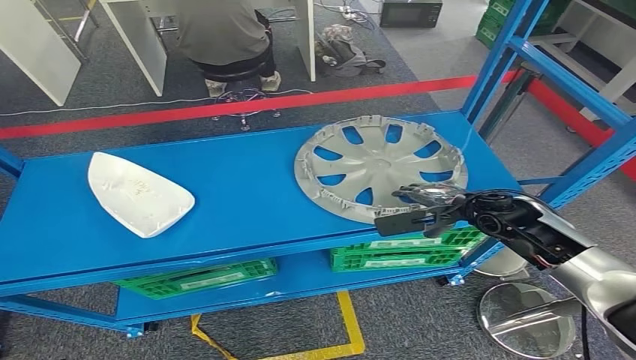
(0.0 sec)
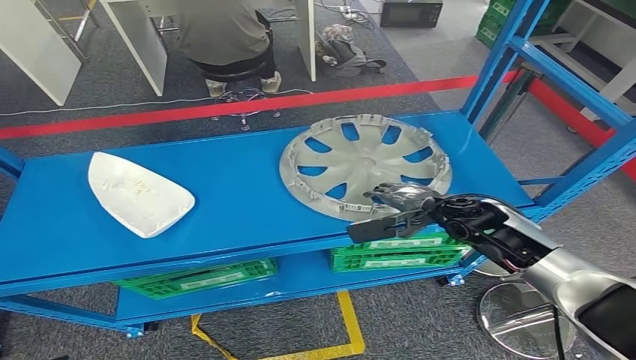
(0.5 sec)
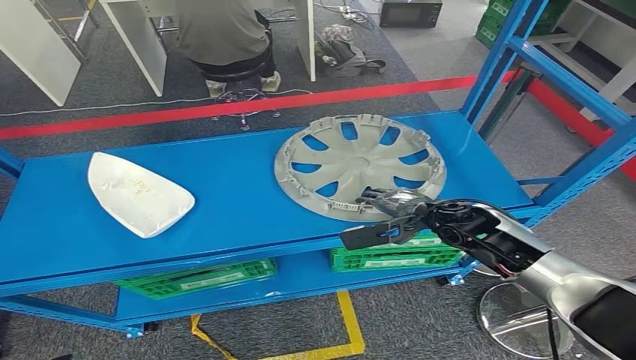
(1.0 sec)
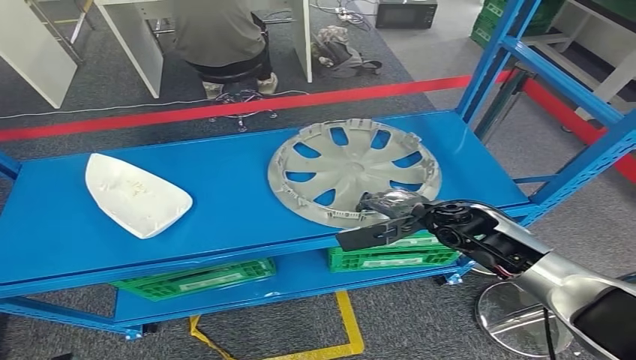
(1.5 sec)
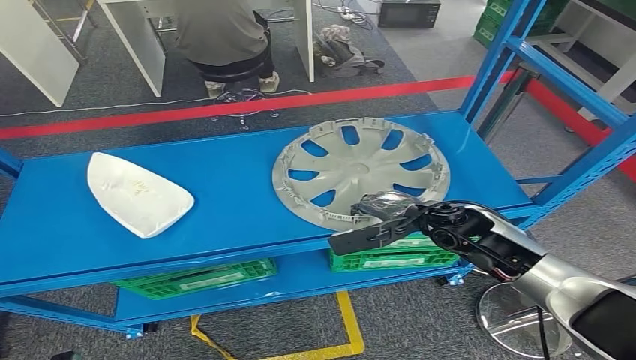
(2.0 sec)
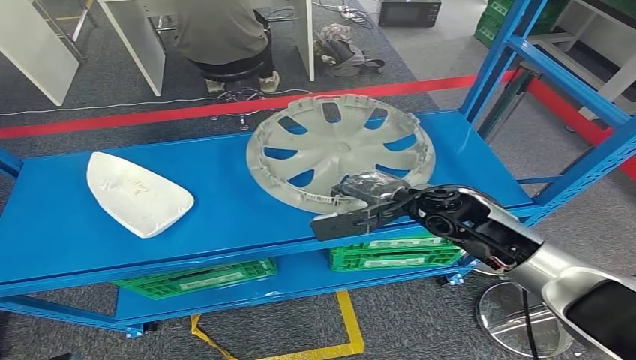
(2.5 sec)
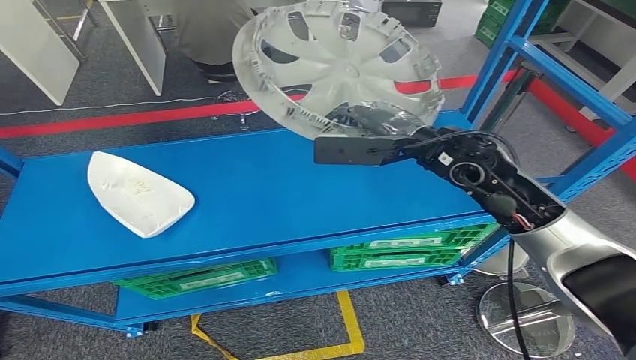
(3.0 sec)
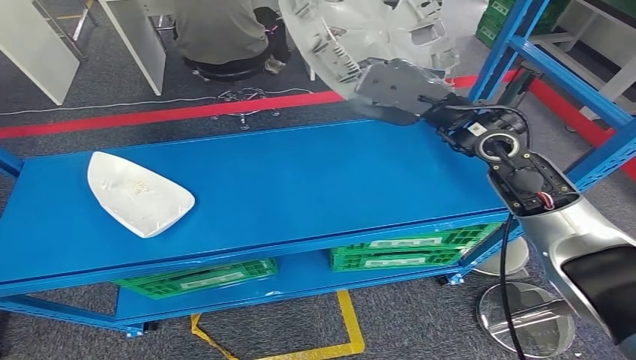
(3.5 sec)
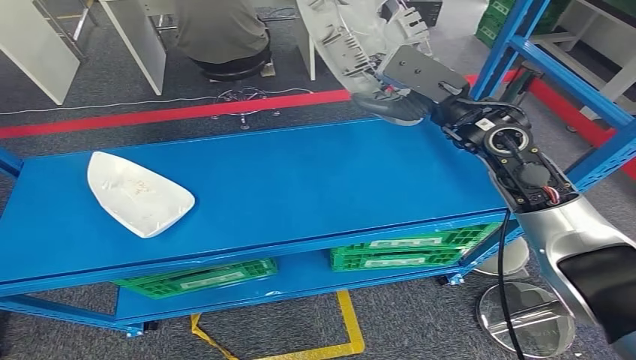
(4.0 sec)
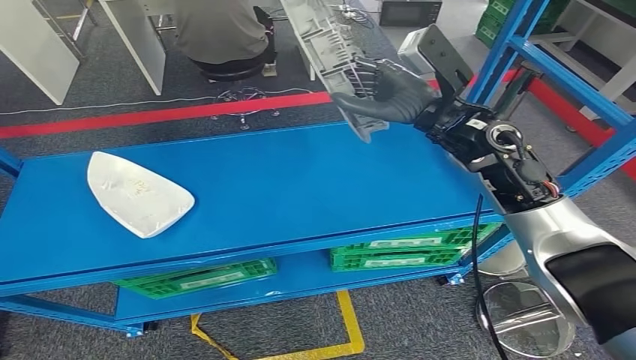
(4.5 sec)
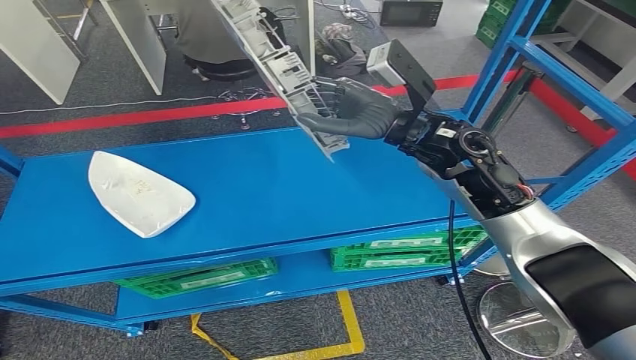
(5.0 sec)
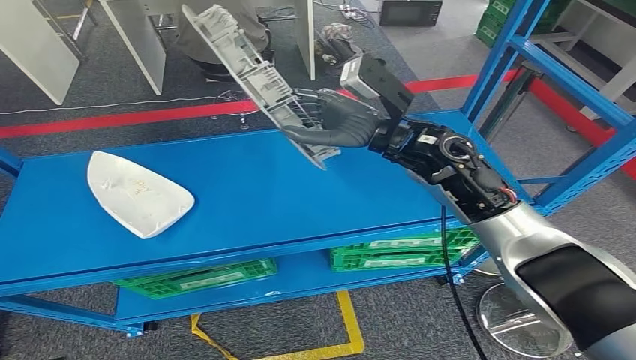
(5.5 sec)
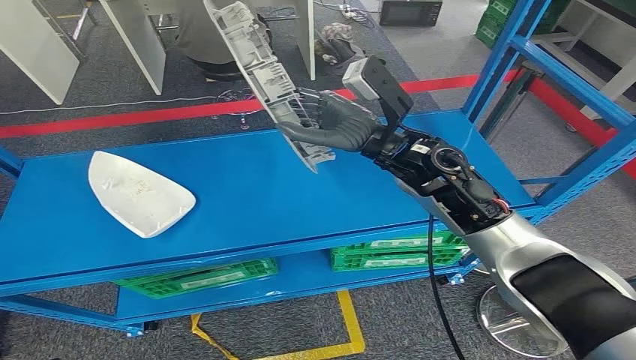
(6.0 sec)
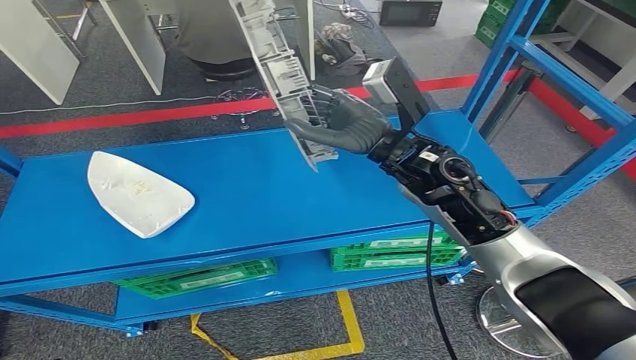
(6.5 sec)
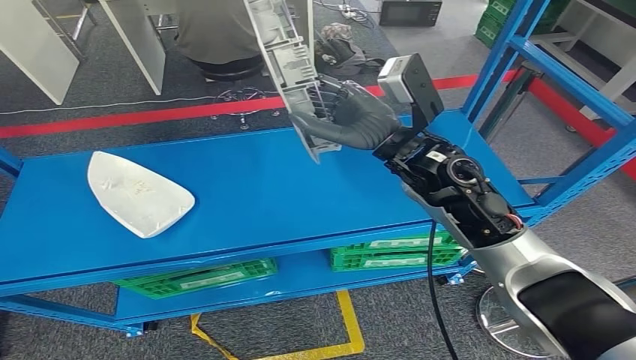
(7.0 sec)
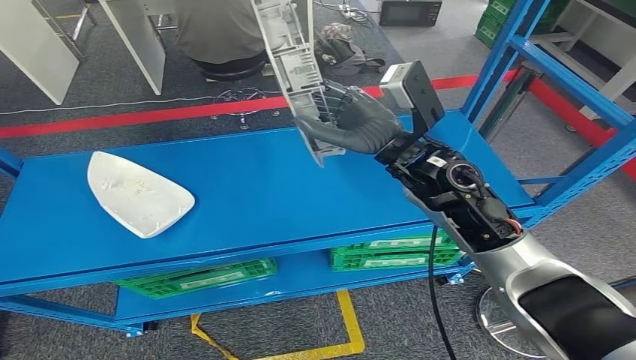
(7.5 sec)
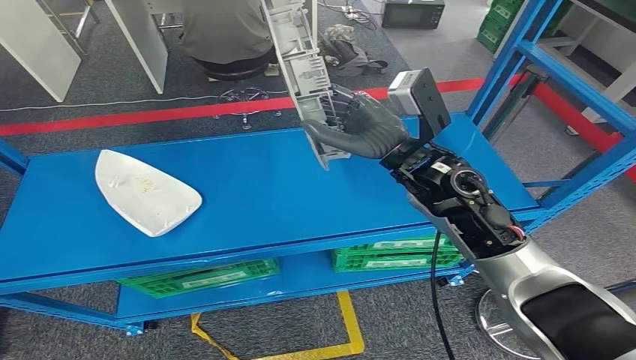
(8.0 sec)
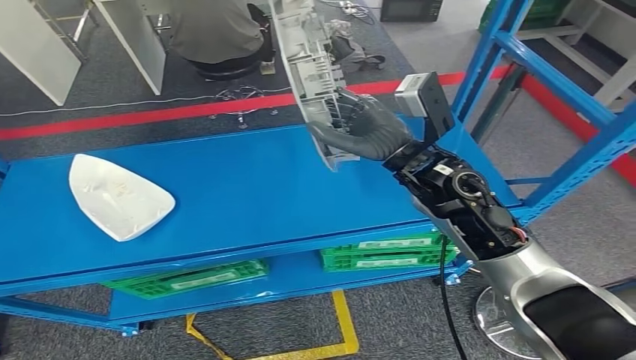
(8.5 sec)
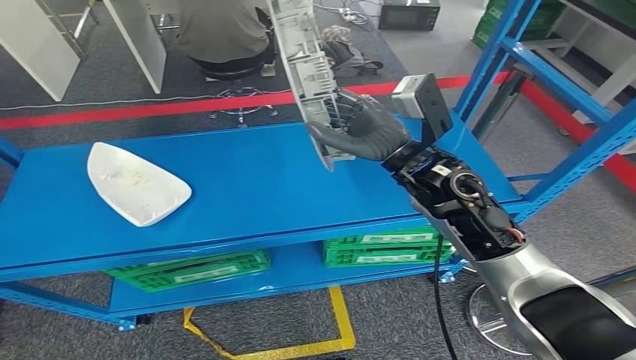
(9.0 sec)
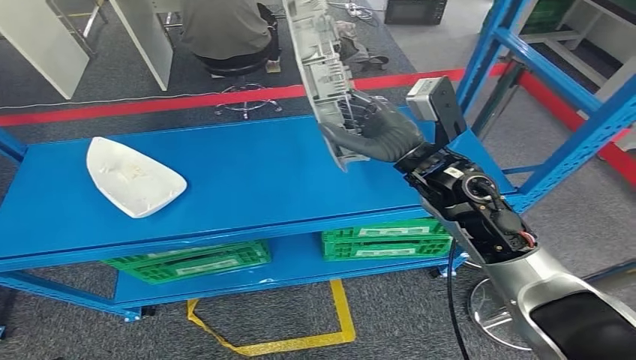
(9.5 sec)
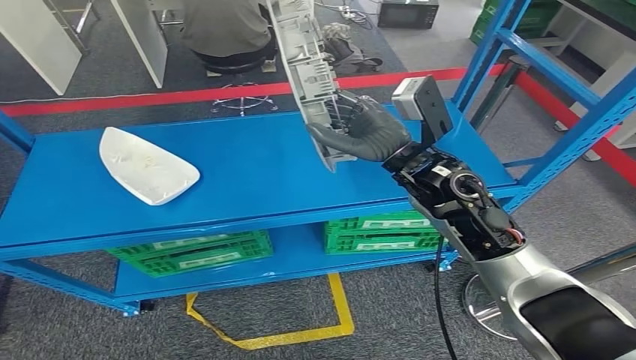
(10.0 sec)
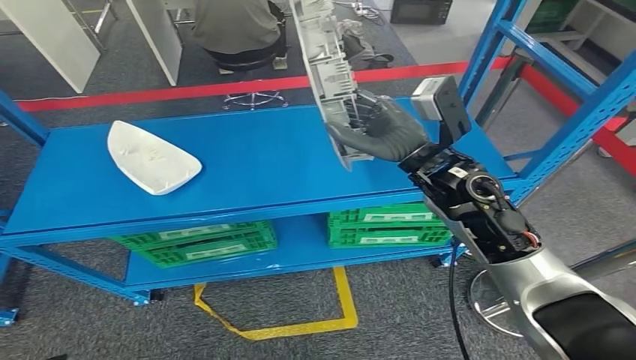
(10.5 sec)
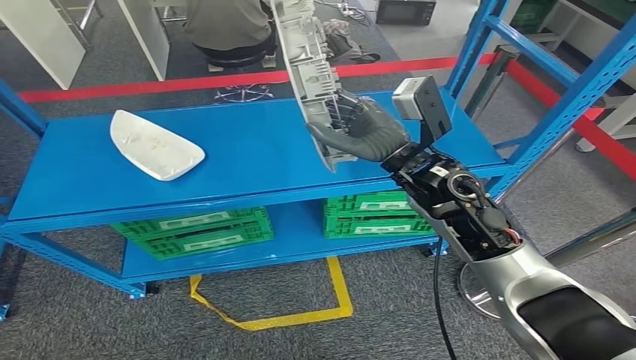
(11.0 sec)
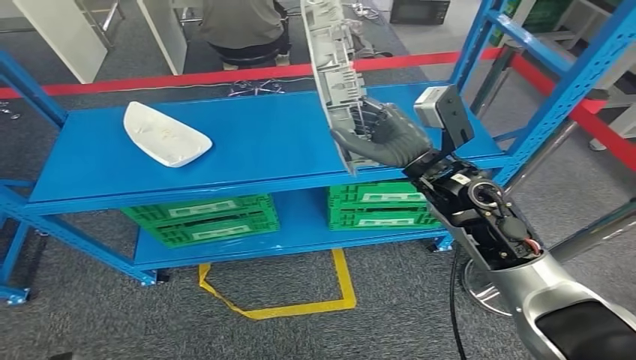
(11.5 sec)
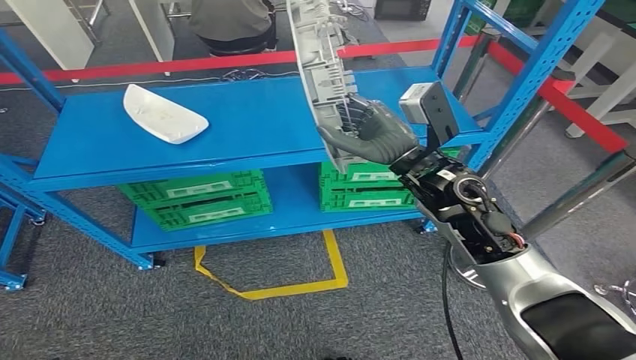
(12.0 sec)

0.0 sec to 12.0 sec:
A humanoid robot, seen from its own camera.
Step, 0.0 sec to 4.5 sec: Pick up the small component from the shelf.
0.0 sec to 2.0 sec: The right hand is displaced to the left by some 10 cm.
4.0 sec to 6.0 sec: The right hand goes roughly 10 cm to the left.

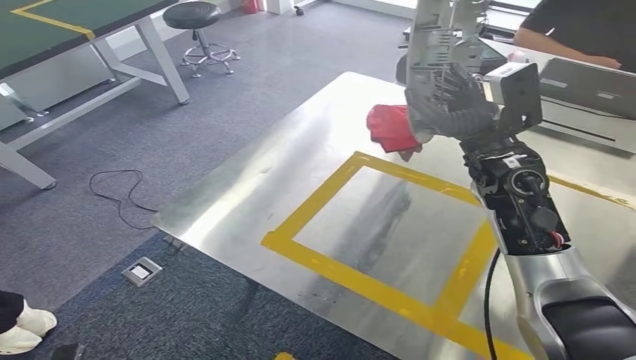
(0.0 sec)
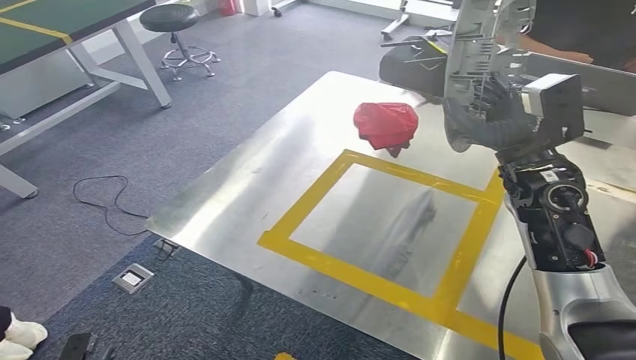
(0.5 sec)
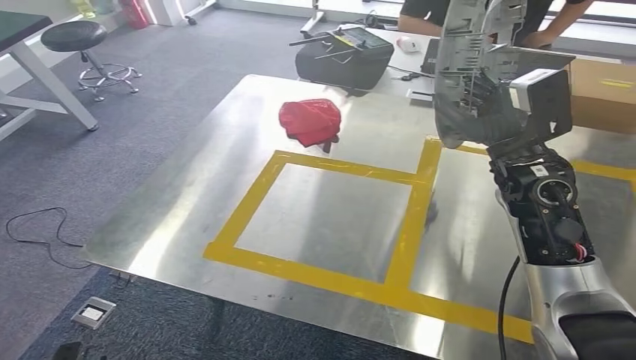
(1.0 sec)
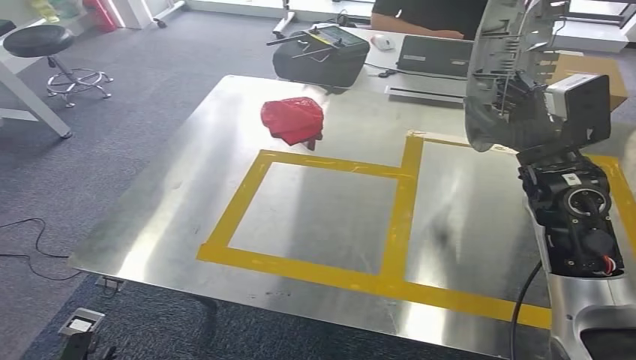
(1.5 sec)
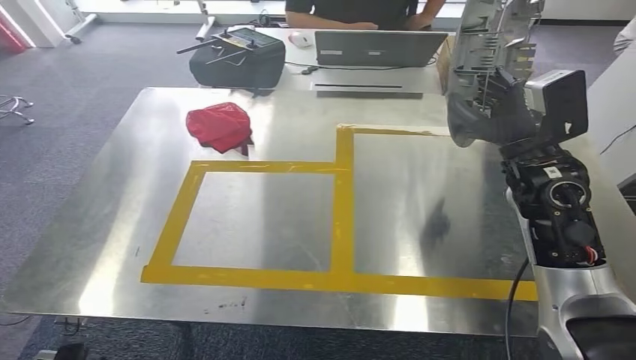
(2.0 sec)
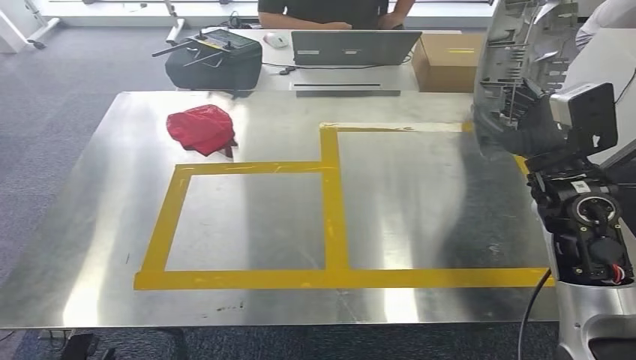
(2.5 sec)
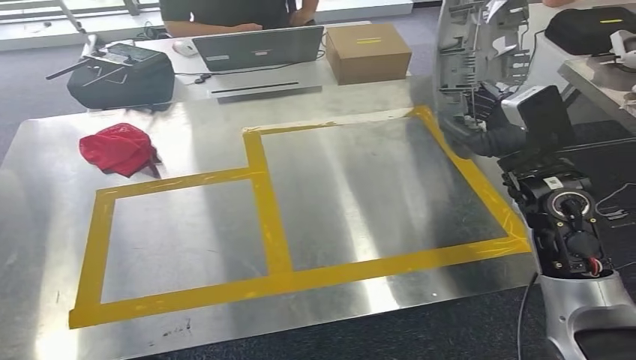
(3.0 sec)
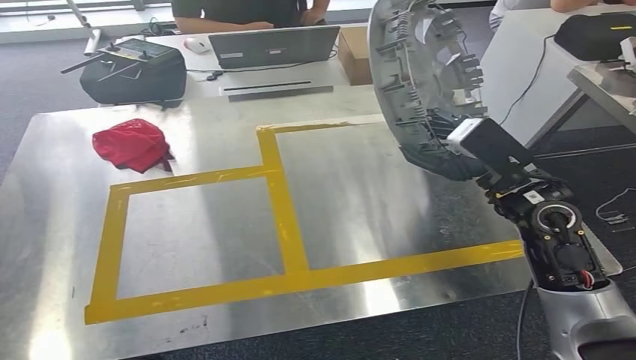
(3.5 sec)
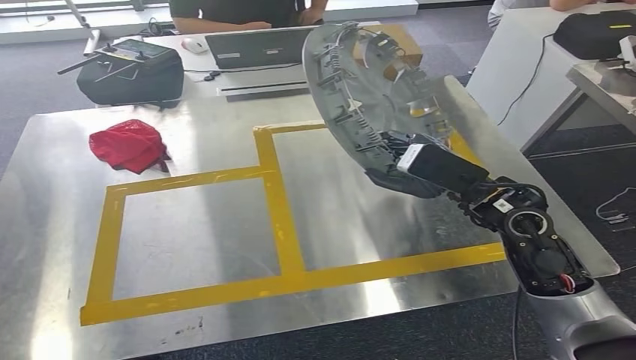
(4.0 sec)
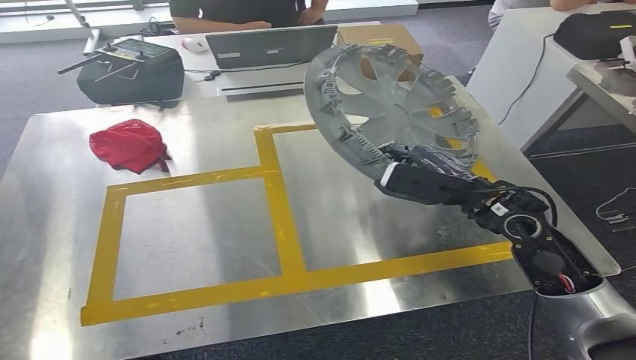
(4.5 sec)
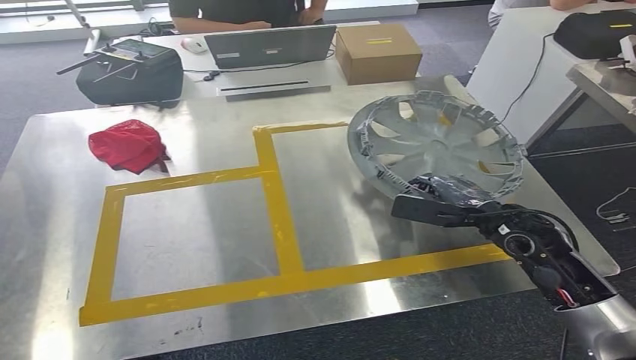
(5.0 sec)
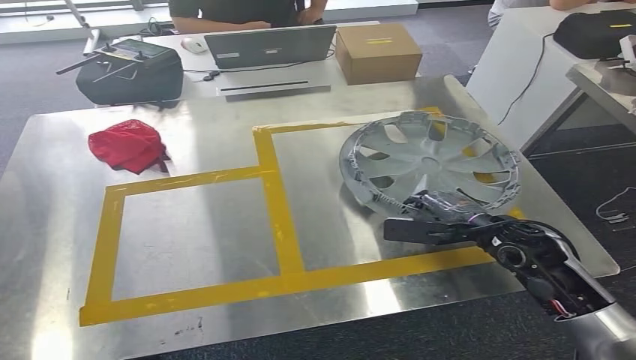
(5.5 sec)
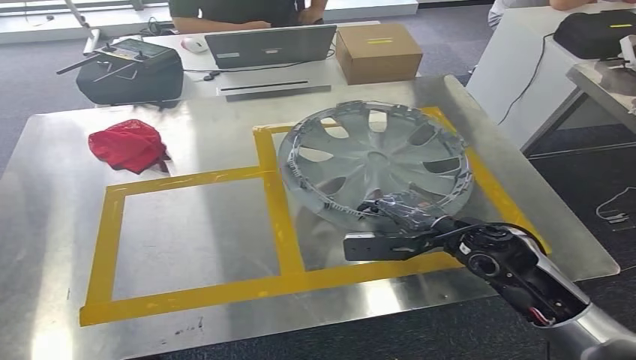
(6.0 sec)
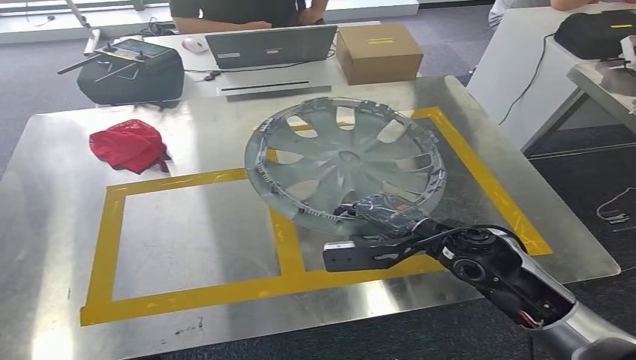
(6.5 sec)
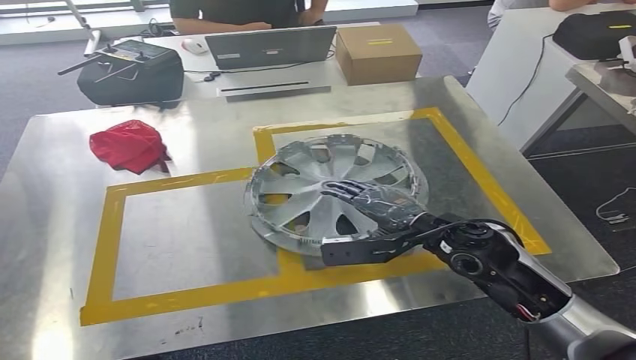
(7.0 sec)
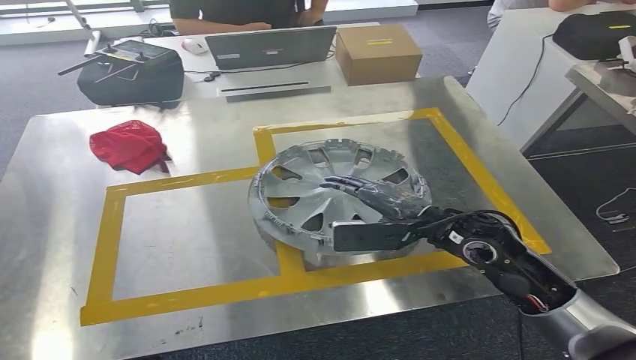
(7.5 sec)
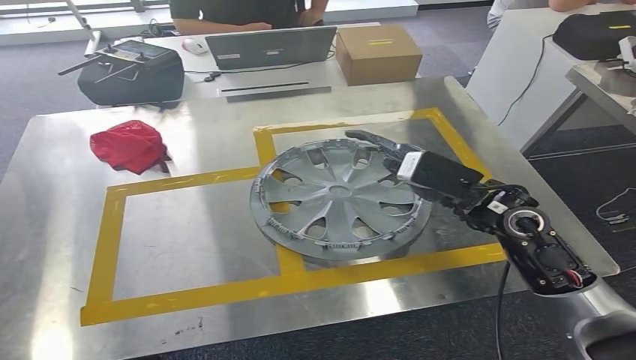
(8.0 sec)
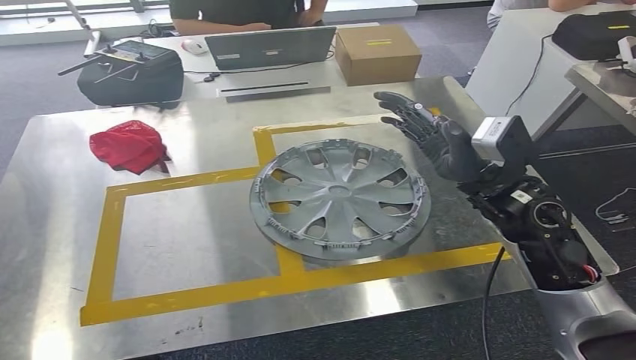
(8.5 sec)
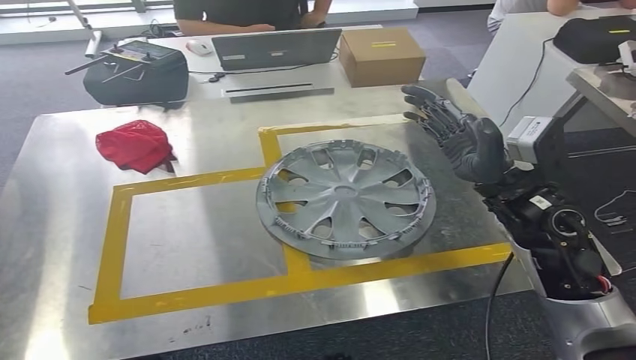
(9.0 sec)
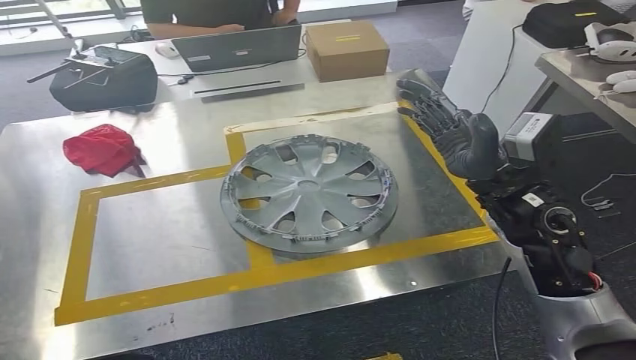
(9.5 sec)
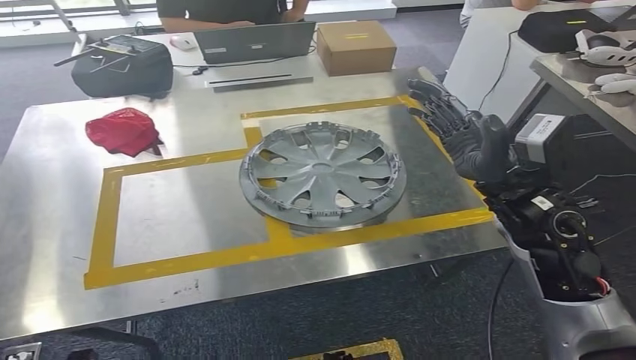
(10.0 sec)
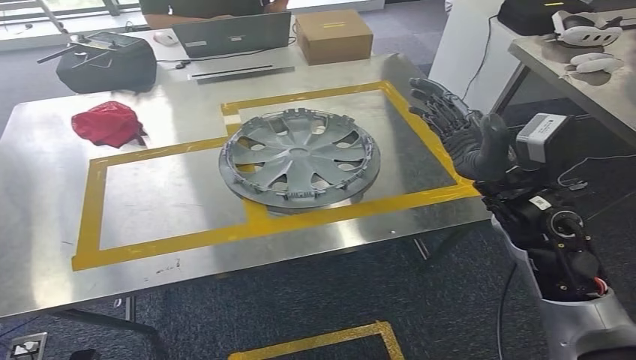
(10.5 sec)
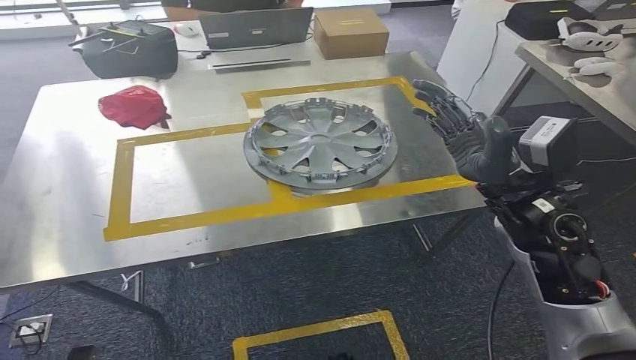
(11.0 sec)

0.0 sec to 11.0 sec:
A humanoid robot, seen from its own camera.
Step, 0.0 sec to 3.0 sec: Move the small component to the workbench.
Step, 3.5 sec to 9.5 sec: Insert the small component into the corresponding slot on the workbench.
5.5 sec to 7.5 sec: The right hand travels to the left and upward by approximately 10 cm.
